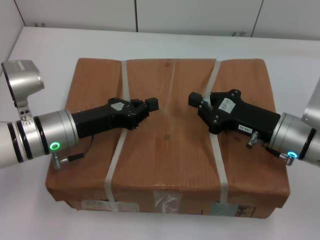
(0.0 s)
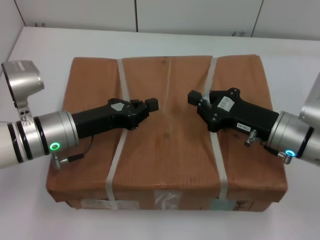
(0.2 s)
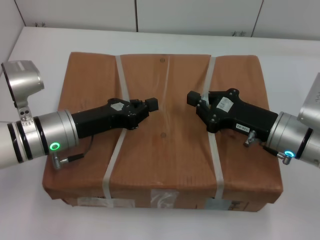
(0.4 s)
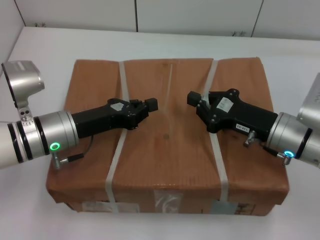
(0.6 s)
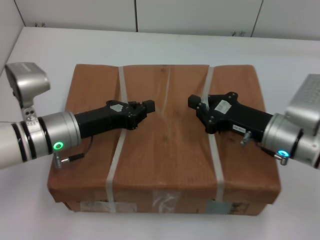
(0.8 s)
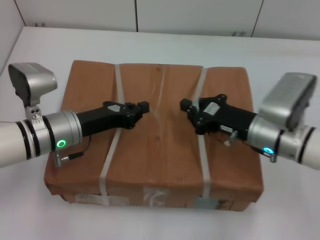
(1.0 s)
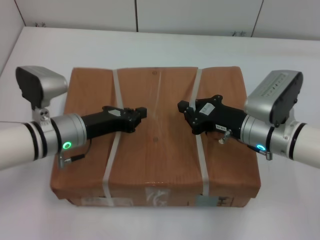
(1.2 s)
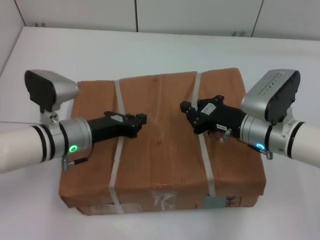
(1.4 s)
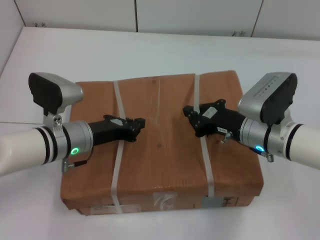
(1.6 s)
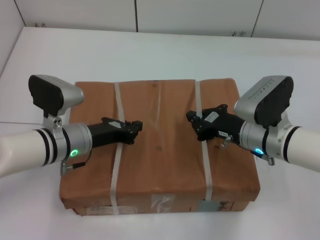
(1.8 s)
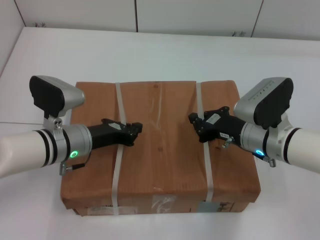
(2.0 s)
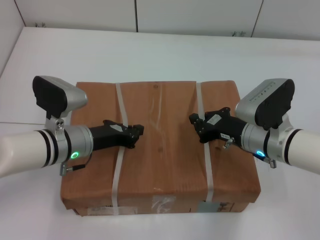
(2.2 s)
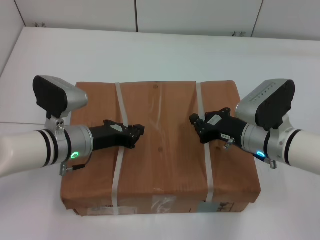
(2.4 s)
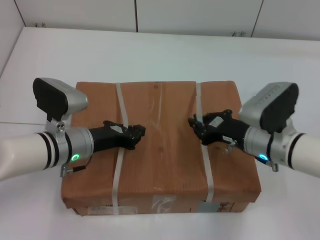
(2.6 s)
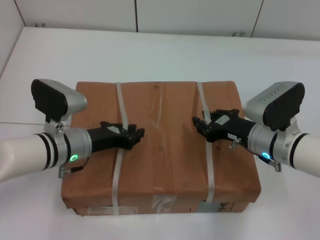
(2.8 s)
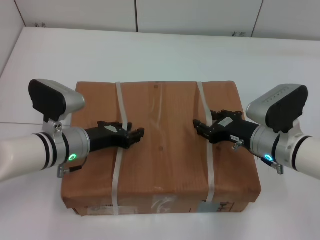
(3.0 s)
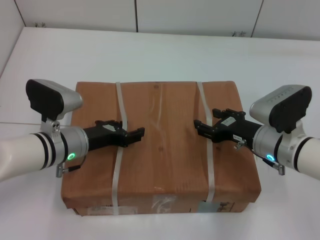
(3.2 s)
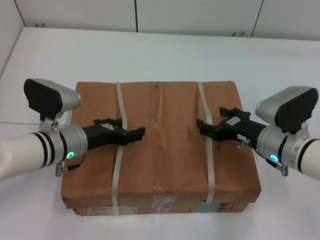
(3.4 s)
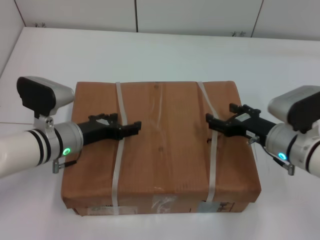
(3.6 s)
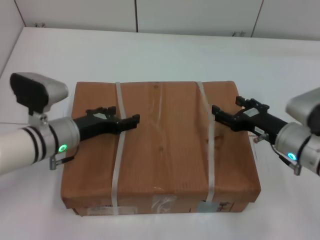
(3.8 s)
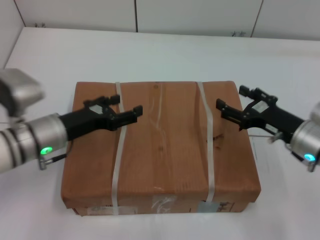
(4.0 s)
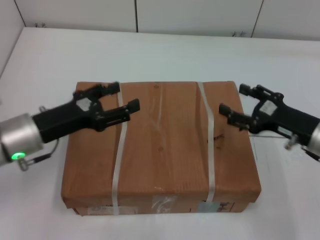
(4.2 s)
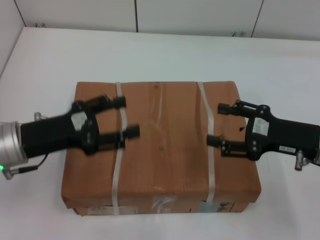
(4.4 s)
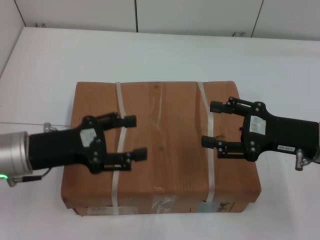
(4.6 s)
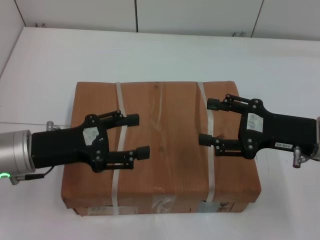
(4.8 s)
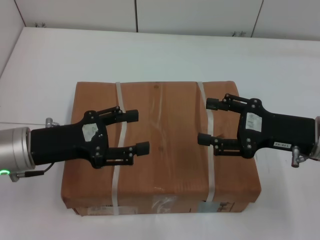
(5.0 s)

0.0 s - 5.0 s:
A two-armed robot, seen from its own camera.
Task of the whole recording: place the box on the table with both arms.
Step, 0.0 s - 2.0 s: Place the box on the table with left gripper.
Step, 0.0 s - 2.0 s: Place the box on the table with right gripper.
Step, 2.2 s - 2.8 s: Loosen the box on the table with left gripper.
Step, 2.2 s - 2.8 s: Loosen the box on the table with right gripper.
0.0 s - 1.6 s: The right gripper moves about 5 cm.
1.6 s - 3.4 s: The right gripper opens up, while the left gripper opens its fingers.
3.4 s - 5.0 s: The left gripper travels upward and backward by approximately 10 cm. The right gripper moves upward, about 10 cm.
